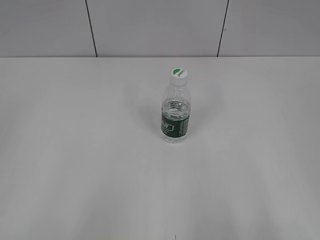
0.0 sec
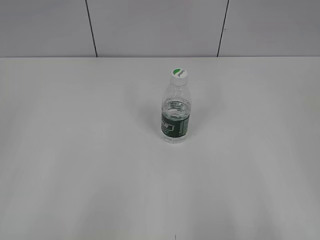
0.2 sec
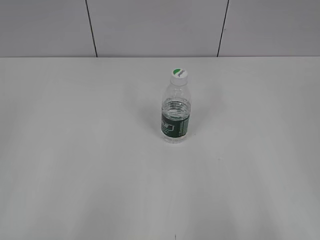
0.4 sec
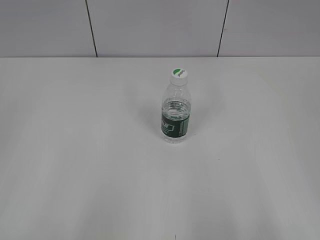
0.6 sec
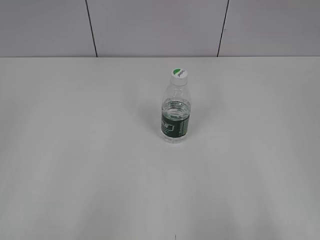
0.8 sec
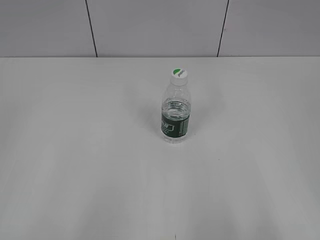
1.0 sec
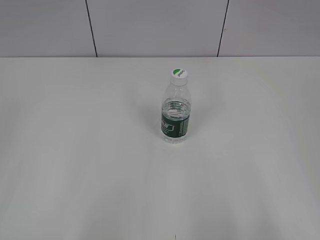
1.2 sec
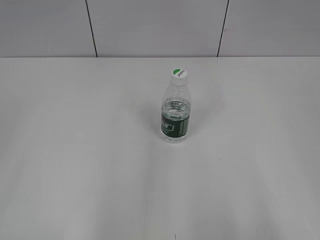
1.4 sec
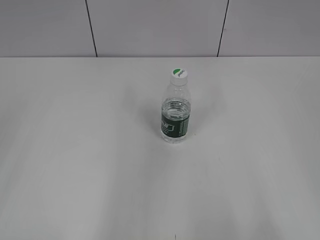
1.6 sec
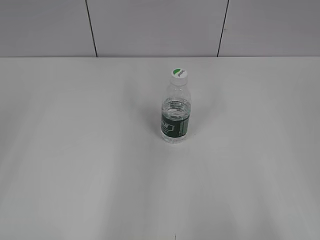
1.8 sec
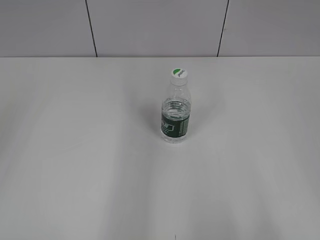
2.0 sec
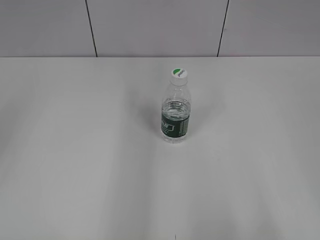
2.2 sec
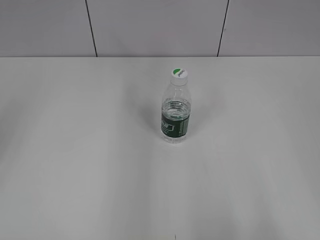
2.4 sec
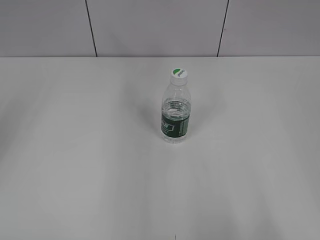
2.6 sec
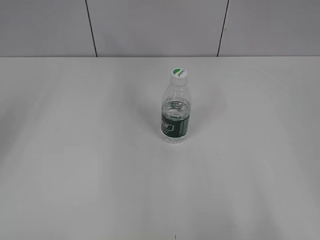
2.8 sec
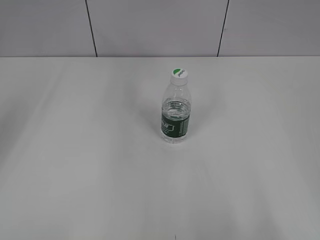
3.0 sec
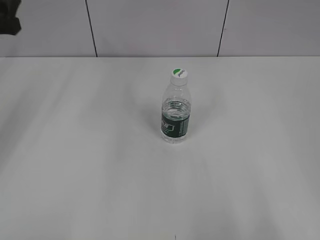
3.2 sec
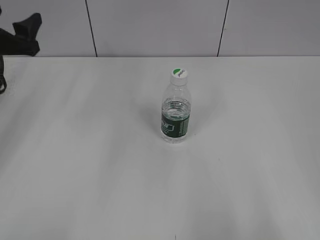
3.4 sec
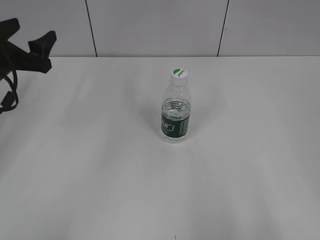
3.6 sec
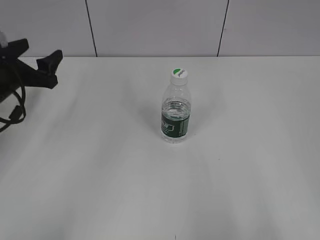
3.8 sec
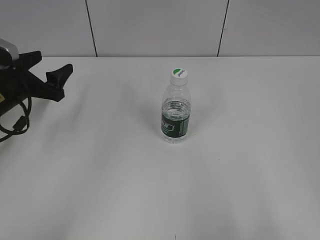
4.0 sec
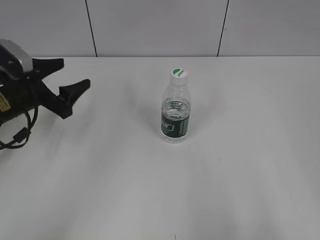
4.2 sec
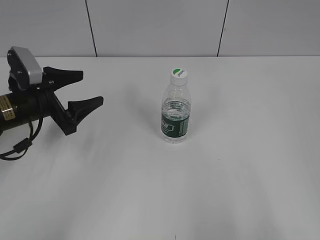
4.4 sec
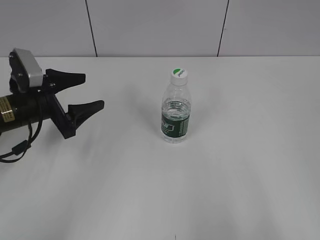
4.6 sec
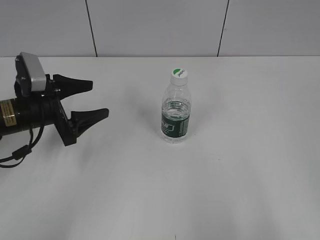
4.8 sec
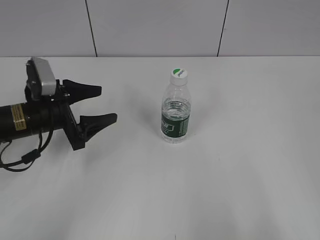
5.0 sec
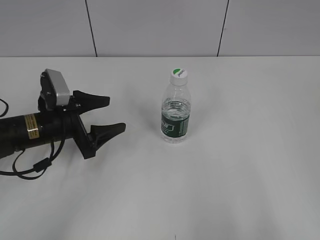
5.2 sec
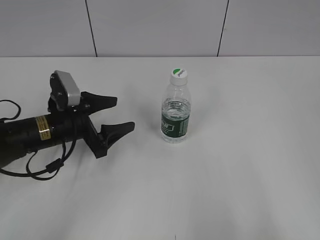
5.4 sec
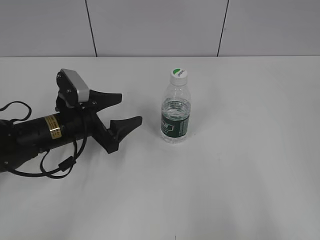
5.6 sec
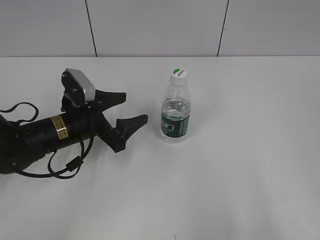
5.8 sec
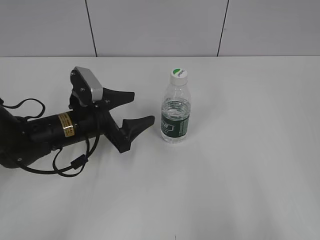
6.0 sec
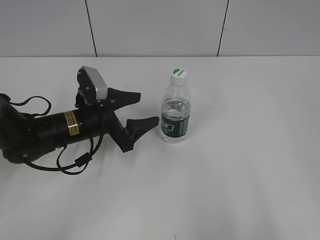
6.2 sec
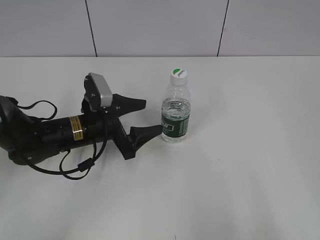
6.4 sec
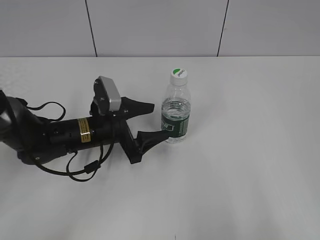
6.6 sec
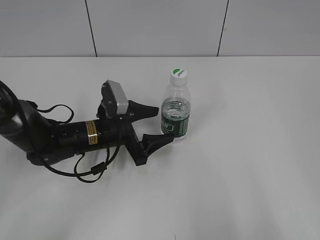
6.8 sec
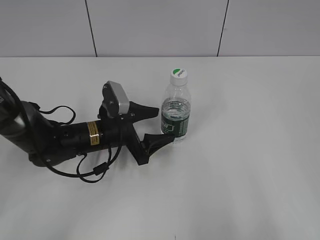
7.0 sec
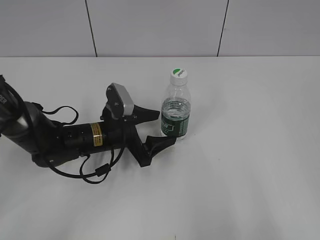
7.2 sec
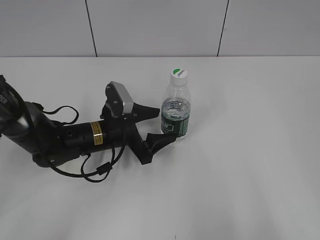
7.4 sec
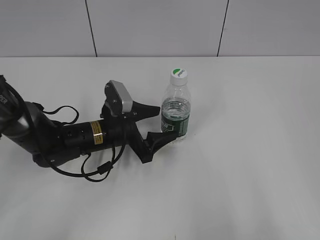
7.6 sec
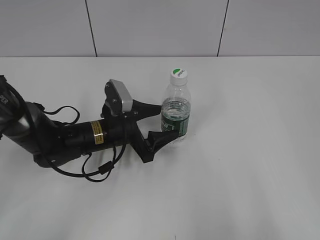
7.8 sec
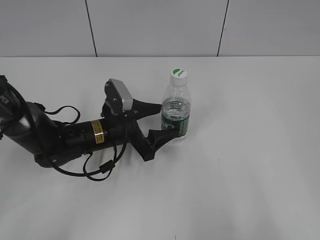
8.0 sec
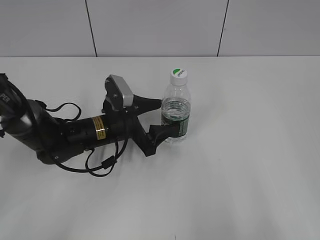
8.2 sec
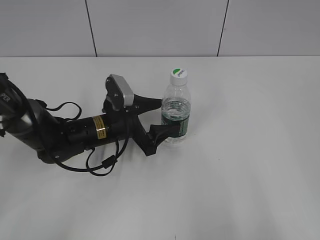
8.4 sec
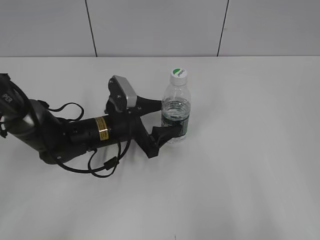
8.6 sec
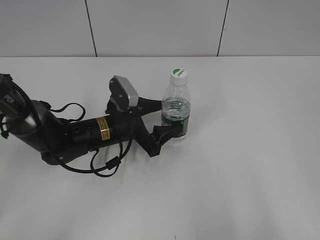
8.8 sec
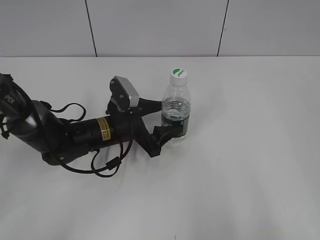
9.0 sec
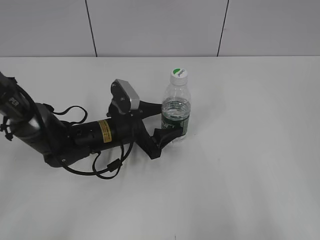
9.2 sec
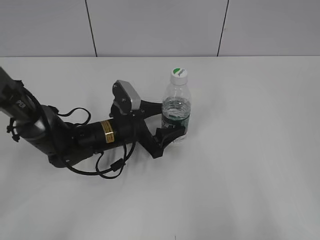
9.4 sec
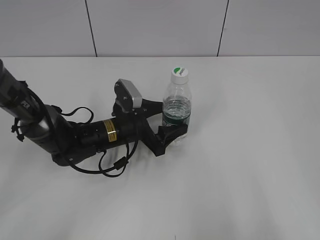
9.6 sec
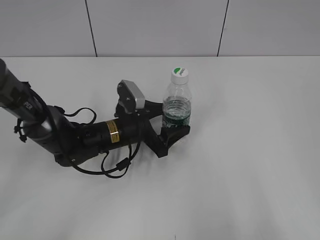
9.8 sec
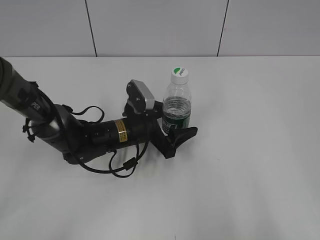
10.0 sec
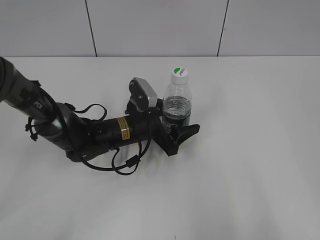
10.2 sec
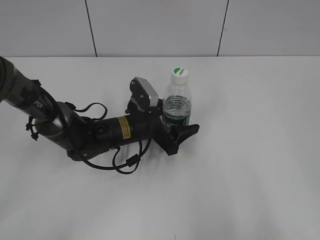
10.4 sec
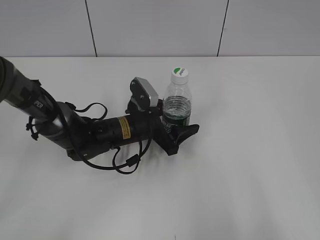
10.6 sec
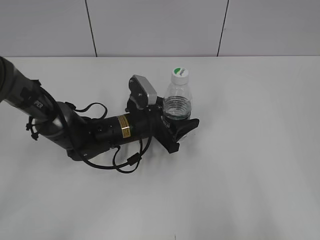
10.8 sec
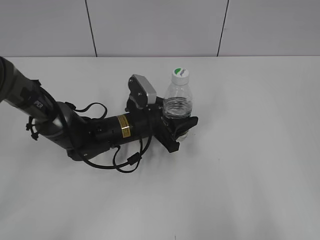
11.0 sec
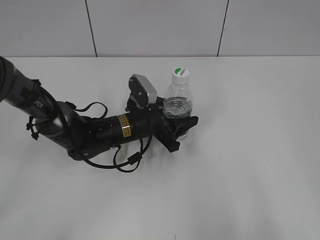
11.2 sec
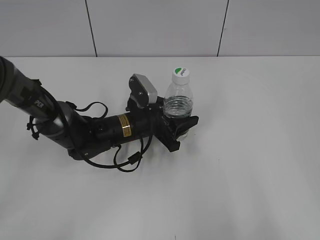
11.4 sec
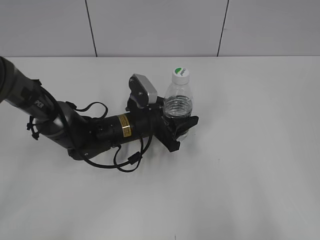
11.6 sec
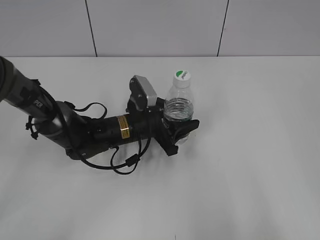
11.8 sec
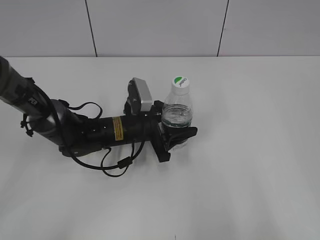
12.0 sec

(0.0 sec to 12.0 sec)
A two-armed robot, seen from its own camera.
3.0 sec - 4.4 sec: The left gripper heads downward, covering roughly 20 cm.
4.4 sec - 6.0 sec: The left gripper shifts roughly 10 cm to the right.
6.0 sec - 7.6 sec: The left gripper shifts by some 5 cm.
7.6 sec - 9.0 sec: The two grippers keep their place.
9.0 sec - 10.4 sec: The grippers stay close to where they were, moving slightly.
10.4 sec - 12.0 sec: The left gripper closes.

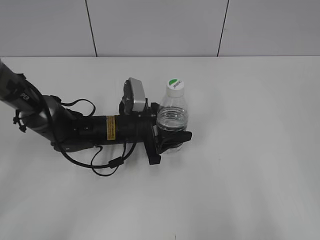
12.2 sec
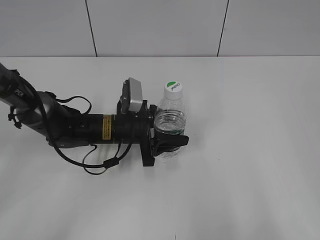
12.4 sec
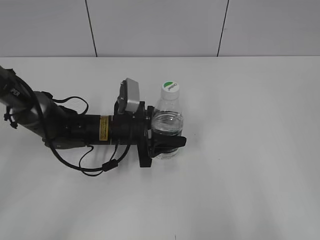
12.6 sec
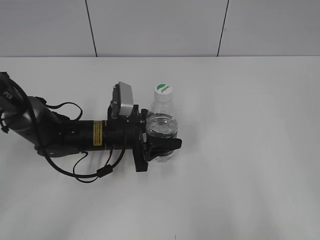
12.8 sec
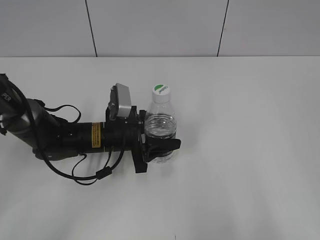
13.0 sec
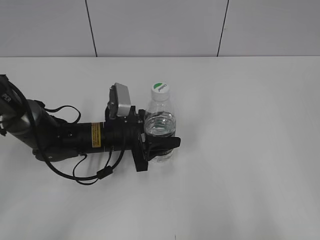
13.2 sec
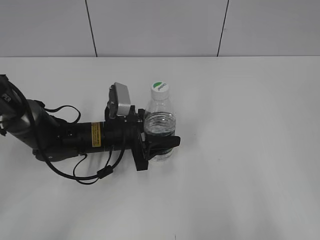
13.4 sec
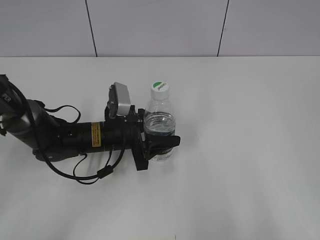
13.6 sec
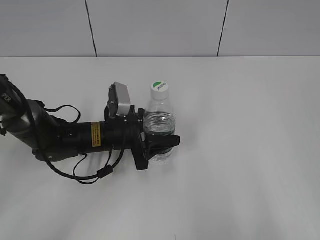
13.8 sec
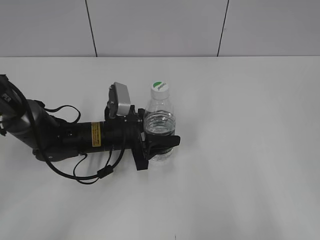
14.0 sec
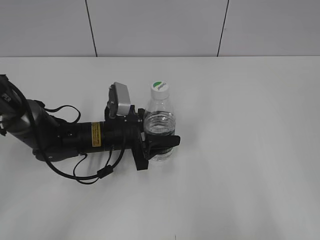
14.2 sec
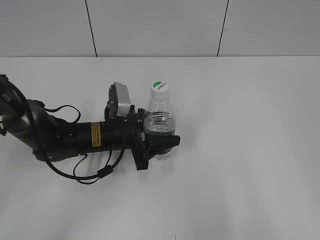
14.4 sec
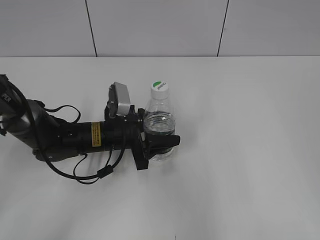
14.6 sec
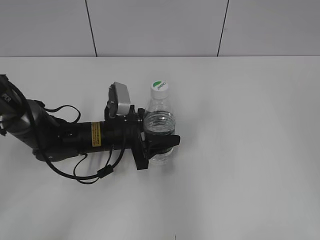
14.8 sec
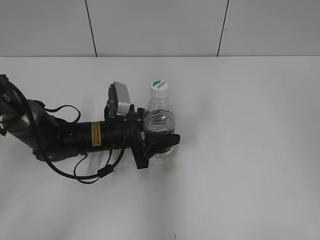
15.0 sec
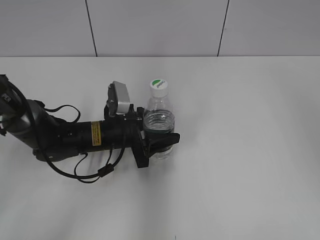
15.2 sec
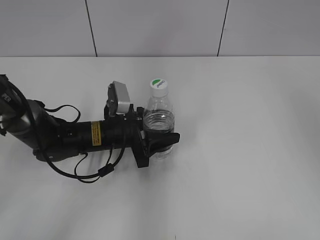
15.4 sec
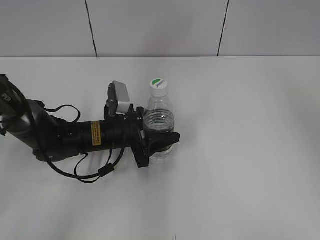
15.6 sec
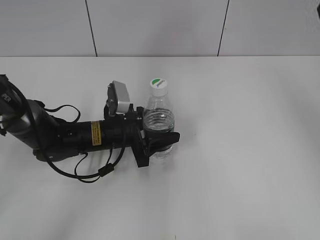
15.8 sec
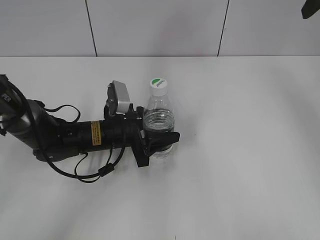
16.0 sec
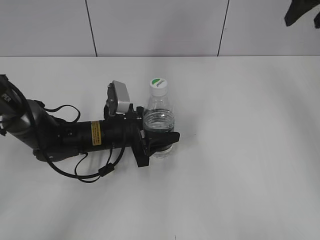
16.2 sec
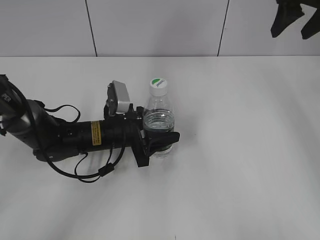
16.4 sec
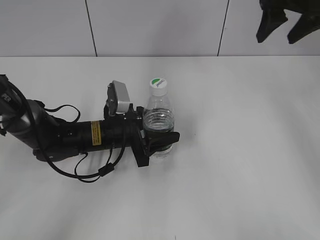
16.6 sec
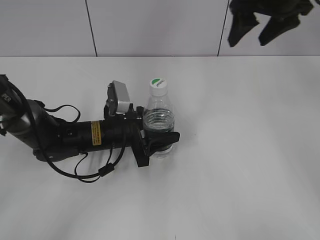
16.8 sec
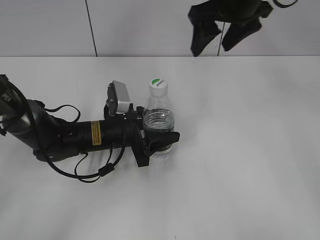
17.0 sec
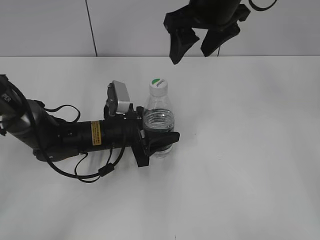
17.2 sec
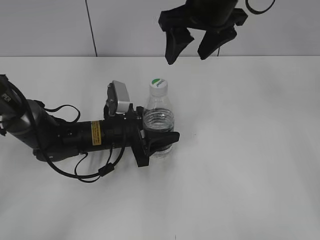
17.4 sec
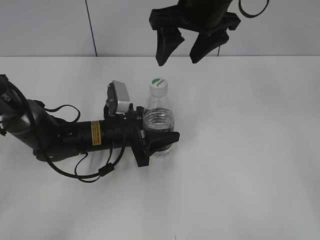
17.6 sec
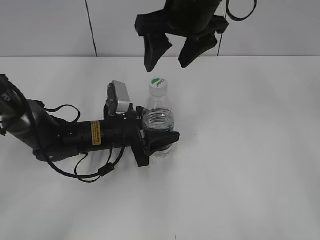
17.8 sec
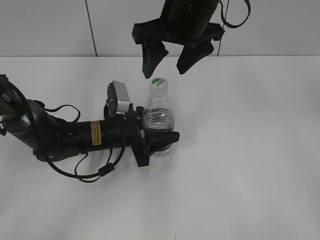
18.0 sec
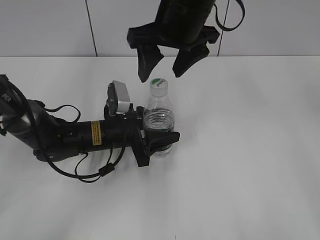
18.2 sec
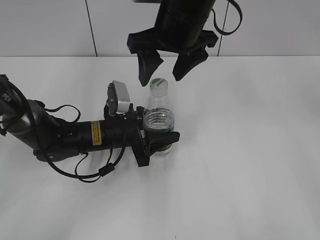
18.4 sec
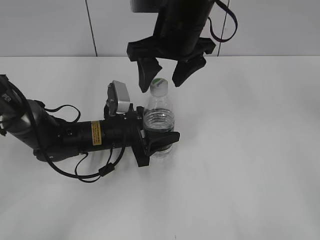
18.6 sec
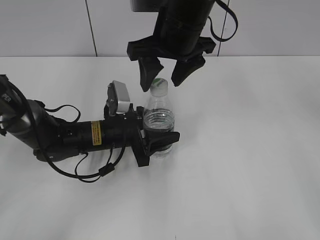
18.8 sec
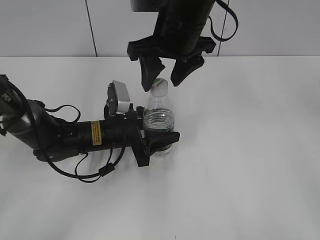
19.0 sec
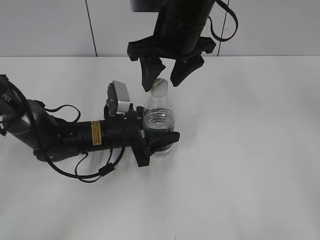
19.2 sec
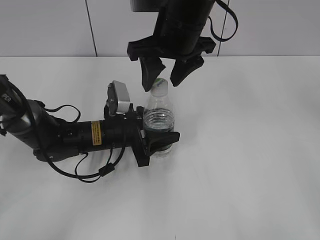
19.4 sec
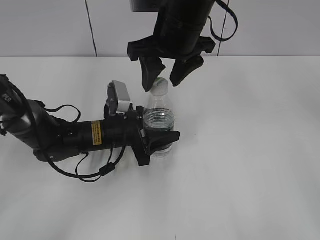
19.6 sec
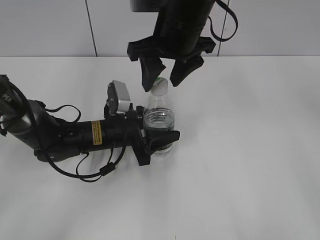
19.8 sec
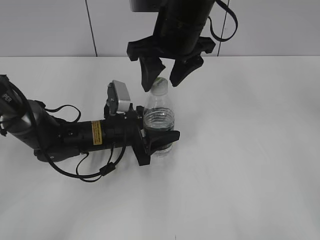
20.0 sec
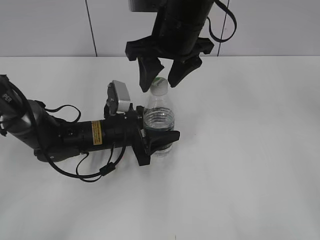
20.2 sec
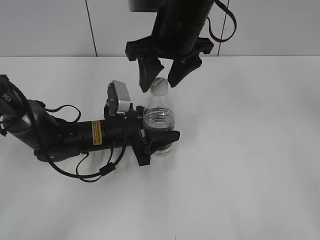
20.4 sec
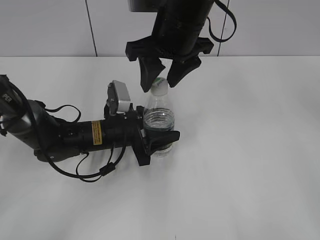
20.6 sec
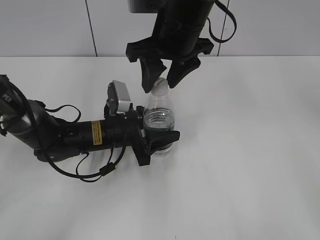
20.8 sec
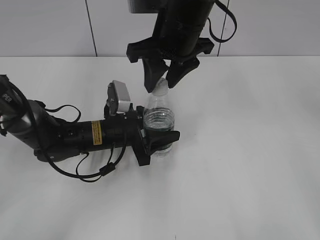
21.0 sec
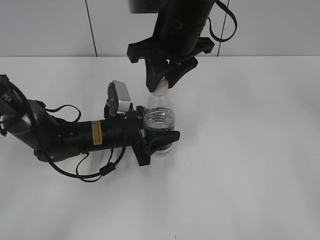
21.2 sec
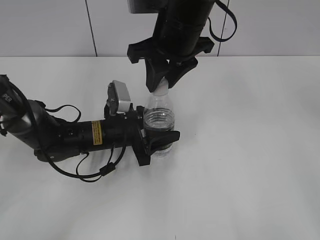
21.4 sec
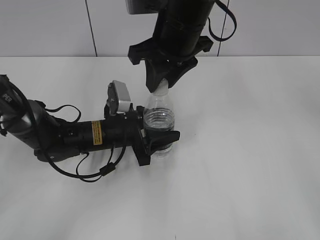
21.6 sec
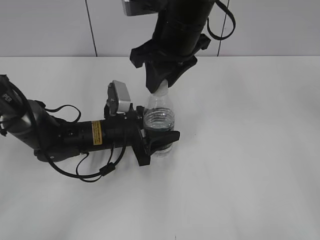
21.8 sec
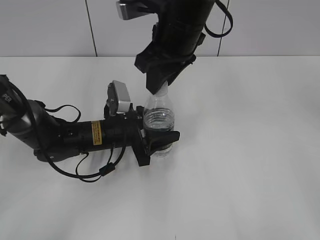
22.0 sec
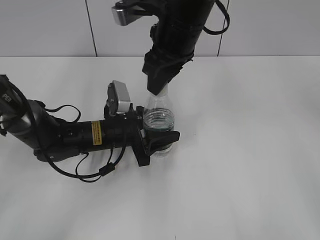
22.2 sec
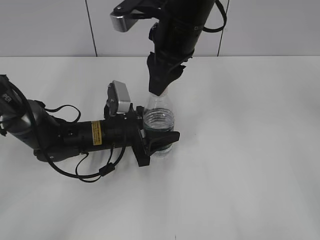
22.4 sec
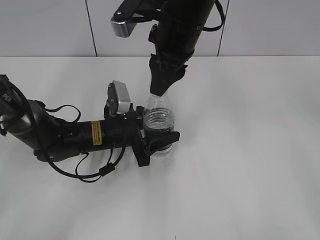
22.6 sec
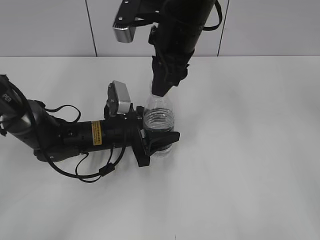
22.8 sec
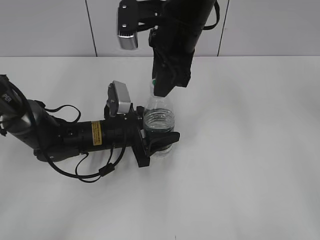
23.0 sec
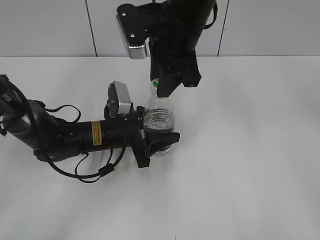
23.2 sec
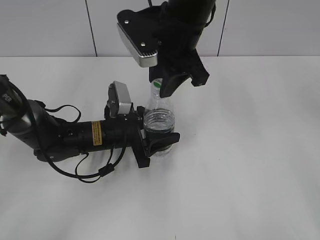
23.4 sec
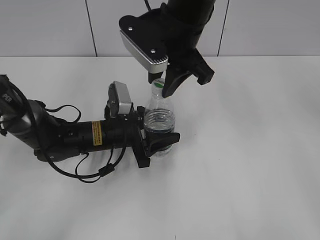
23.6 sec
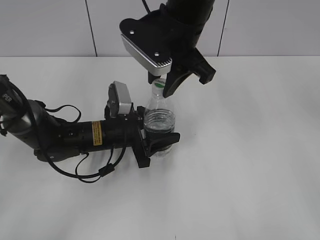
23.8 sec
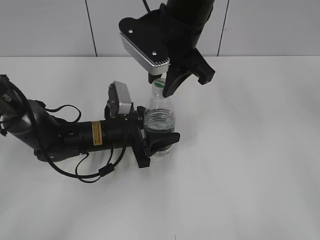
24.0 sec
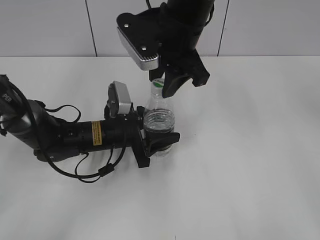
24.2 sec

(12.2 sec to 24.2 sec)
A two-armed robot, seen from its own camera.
12.2 sec - 13.8 sec: The grippers stay close to where they were, moving slightly.
13.8 sec - 15.2 sec: The right gripper moves forward and upward, about 20 cm.
15.2 sec - 16.6 sec: The right gripper goes some 25 cm forward.
16.6 sec - 18.2 sec: The right gripper travels to the left by approximately 20 cm.
18.2 sec - 19.8 sec: The grippers move only a little.
19.8 sec - 21.2 sec: The right gripper closes.
